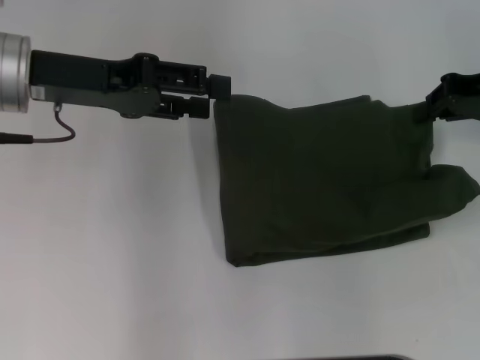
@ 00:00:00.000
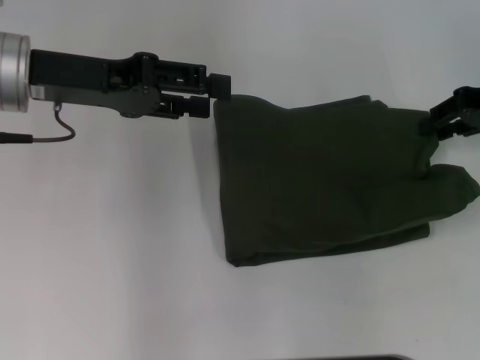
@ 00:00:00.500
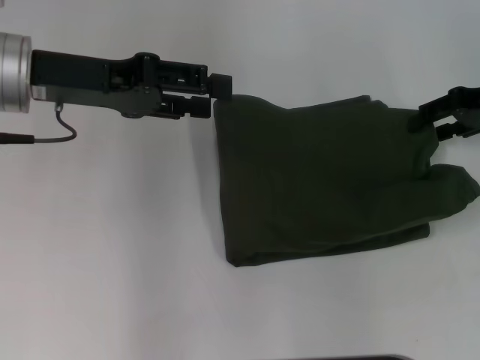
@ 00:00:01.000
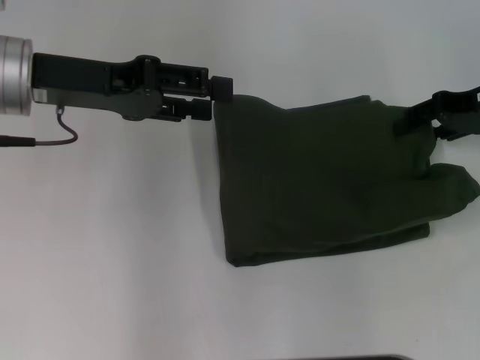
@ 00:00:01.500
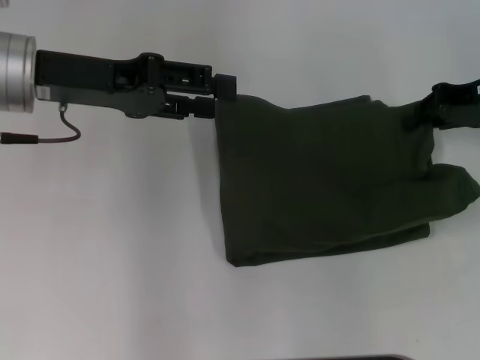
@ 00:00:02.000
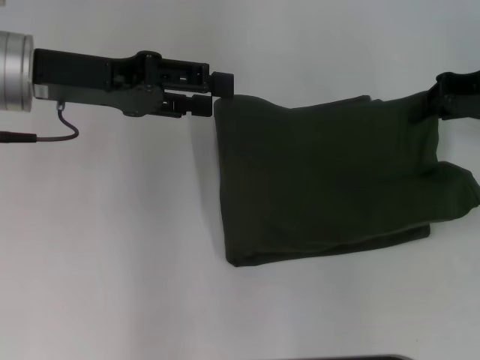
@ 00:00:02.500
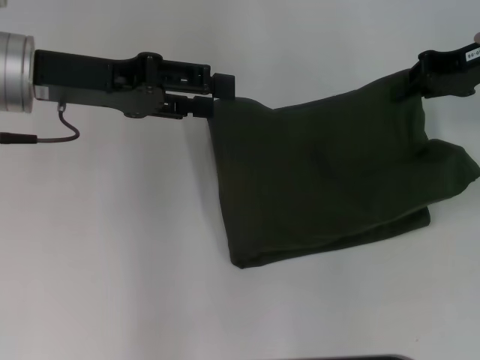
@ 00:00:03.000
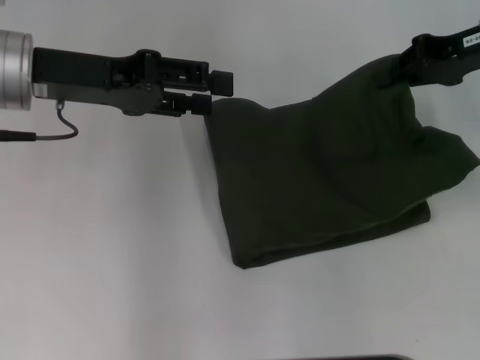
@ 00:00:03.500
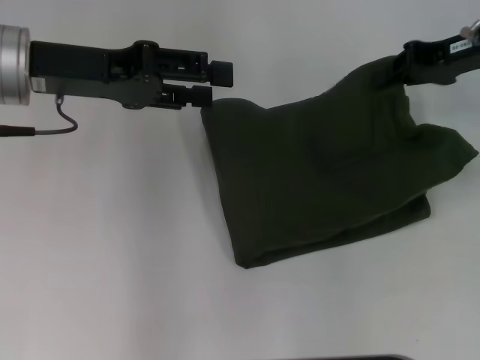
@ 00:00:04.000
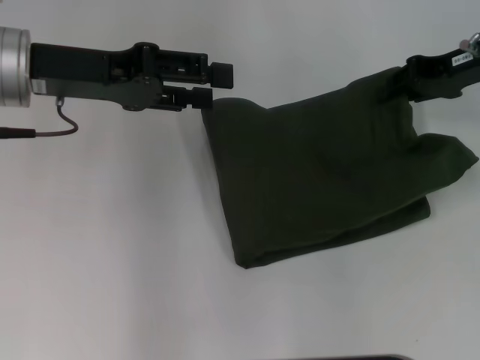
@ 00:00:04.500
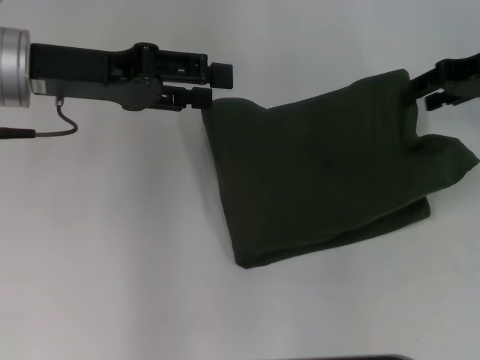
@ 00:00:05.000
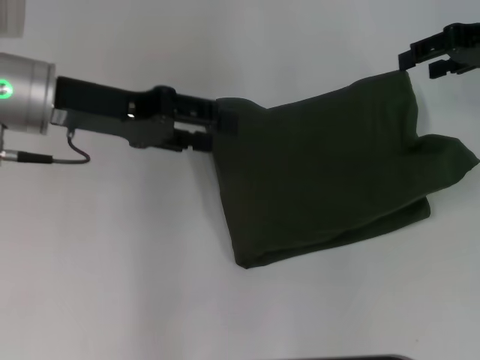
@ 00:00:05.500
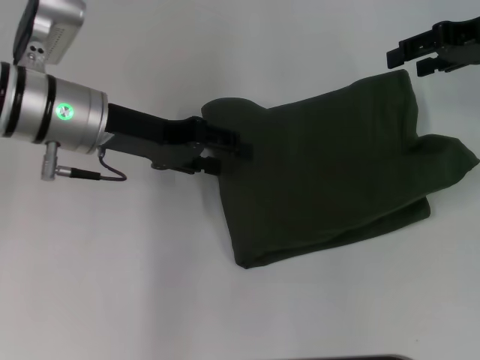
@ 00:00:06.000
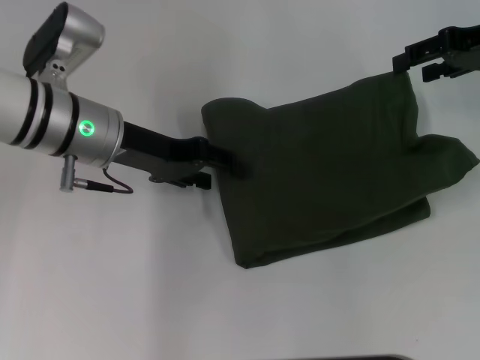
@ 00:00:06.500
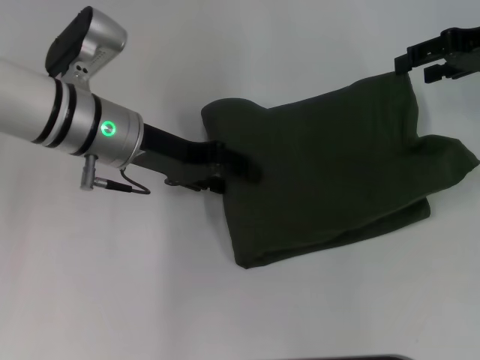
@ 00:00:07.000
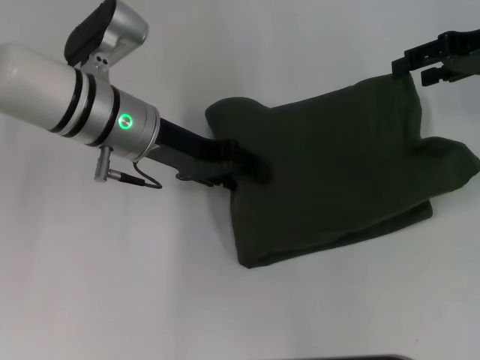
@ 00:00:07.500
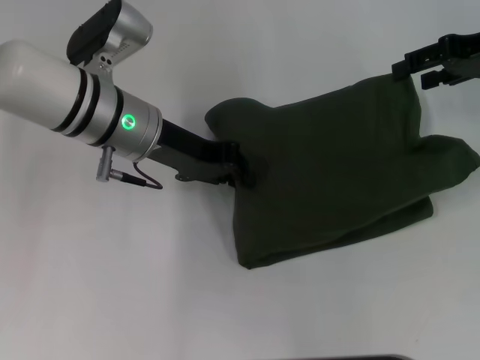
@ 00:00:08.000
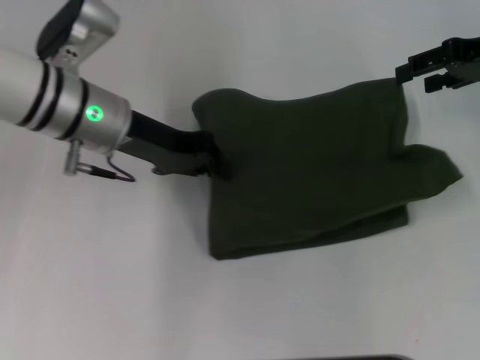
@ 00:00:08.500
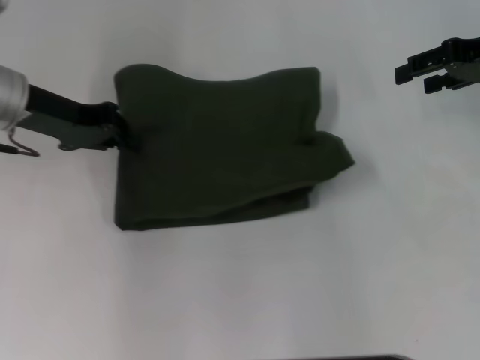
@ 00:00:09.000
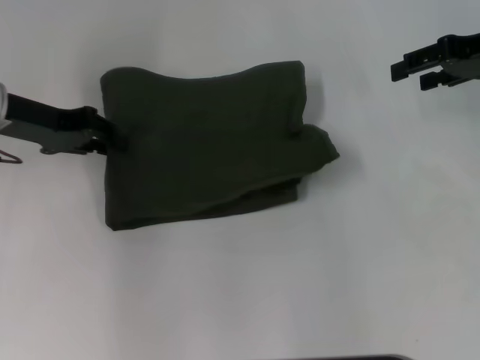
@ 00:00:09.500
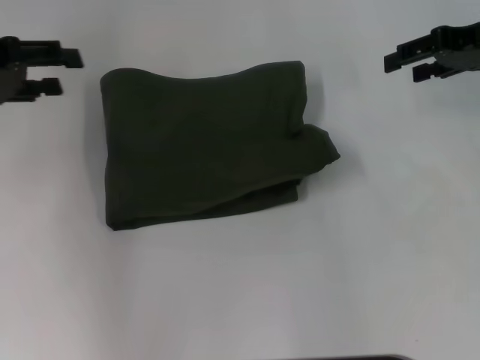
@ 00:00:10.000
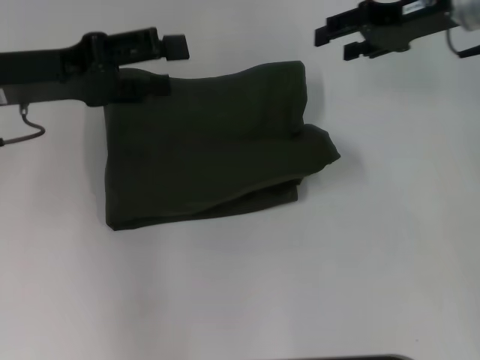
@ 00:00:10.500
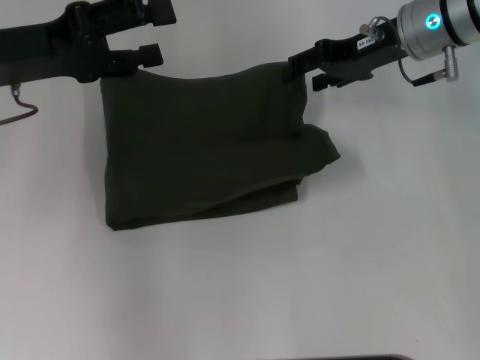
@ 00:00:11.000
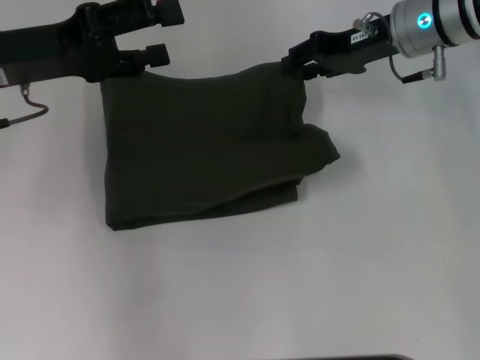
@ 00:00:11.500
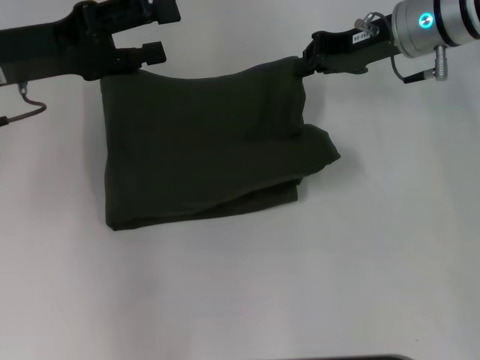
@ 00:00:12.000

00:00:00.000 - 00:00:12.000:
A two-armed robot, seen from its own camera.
00:00:00.000 - 00:00:04.000: The grippers make only small movements.
00:00:04.000 - 00:00:06.000: The right gripper opens its fingers. The left gripper shifts some 5 cm downward.
00:00:06.000 - 00:00:08.000: The left gripper changes place by approximately 5 cm, and closes its fingers.
00:00:08.000 - 00:00:10.000: The left gripper travels to the left by about 20 cm.
00:00:10.000 - 00:00:12.000: The right gripper moves to the left, approximately 10 cm, and closes up. Meanwhile the left gripper shifts roughly 5 cm to the right, and opens its fingers.

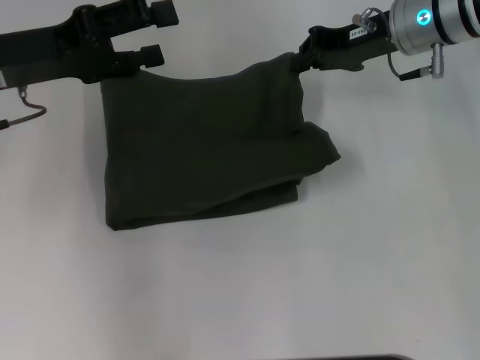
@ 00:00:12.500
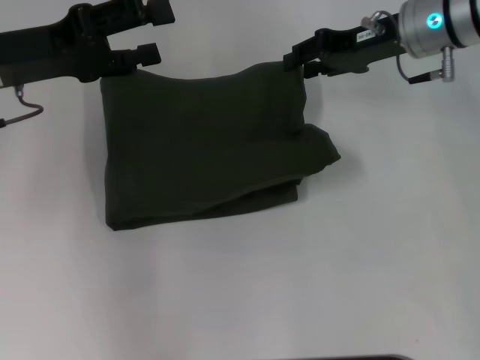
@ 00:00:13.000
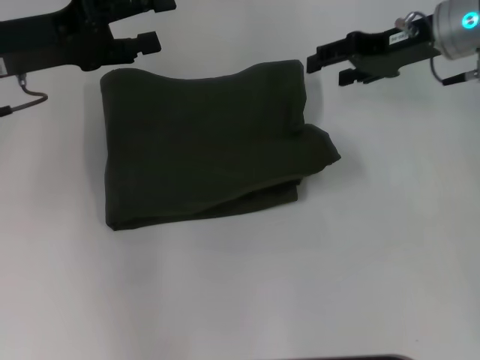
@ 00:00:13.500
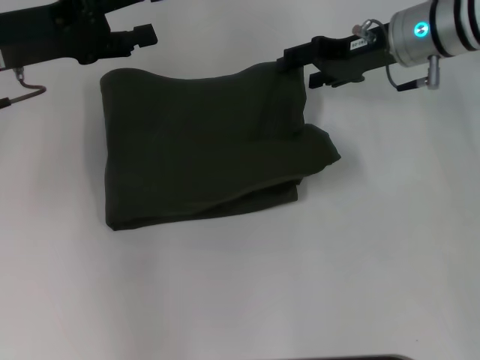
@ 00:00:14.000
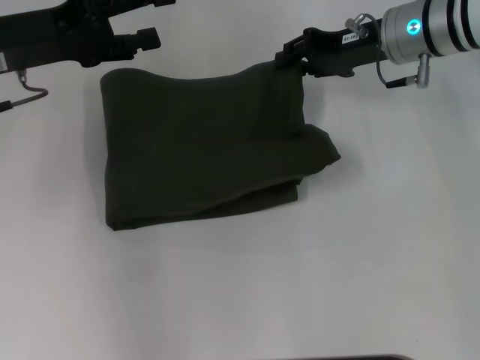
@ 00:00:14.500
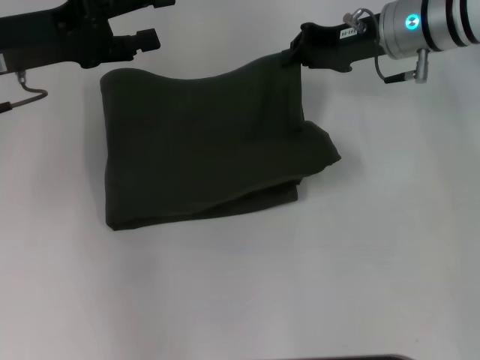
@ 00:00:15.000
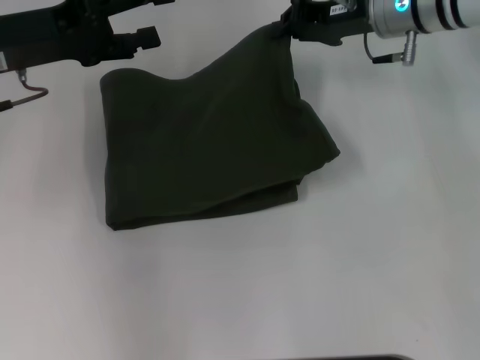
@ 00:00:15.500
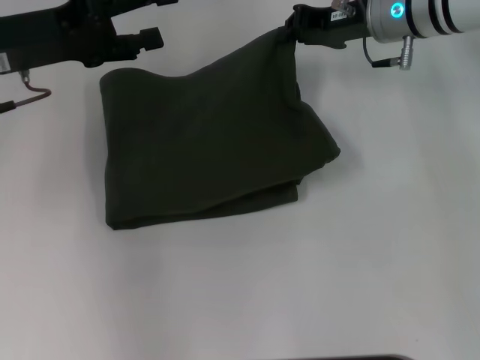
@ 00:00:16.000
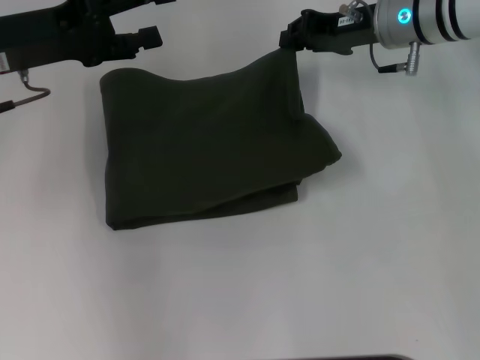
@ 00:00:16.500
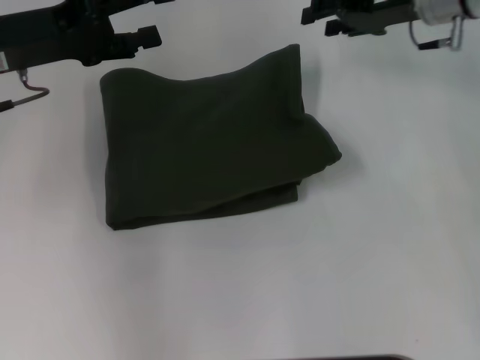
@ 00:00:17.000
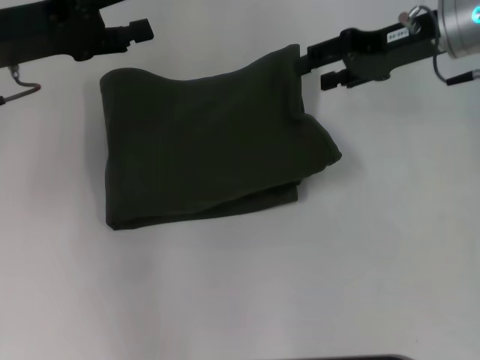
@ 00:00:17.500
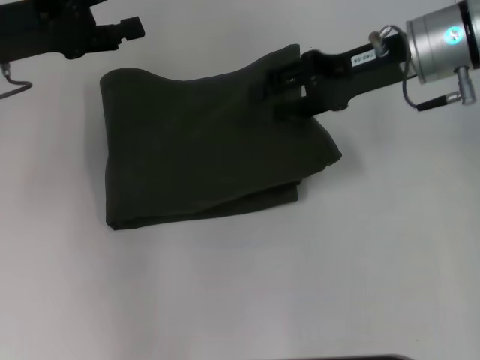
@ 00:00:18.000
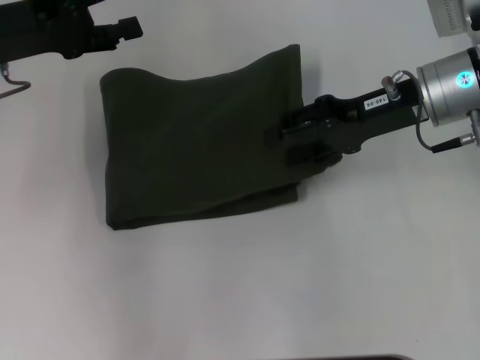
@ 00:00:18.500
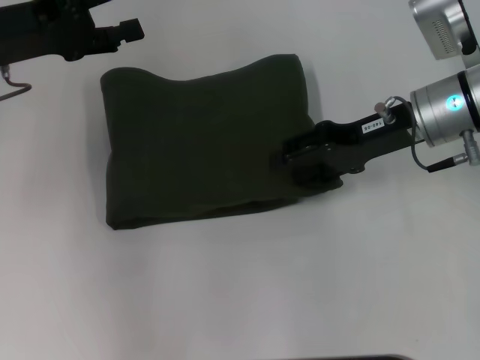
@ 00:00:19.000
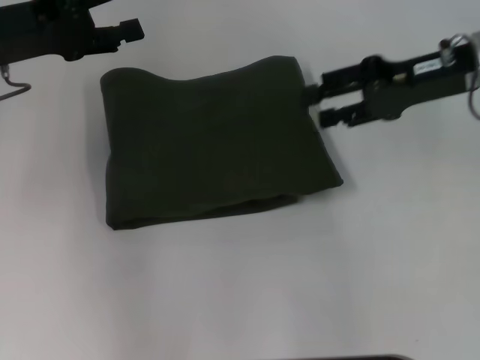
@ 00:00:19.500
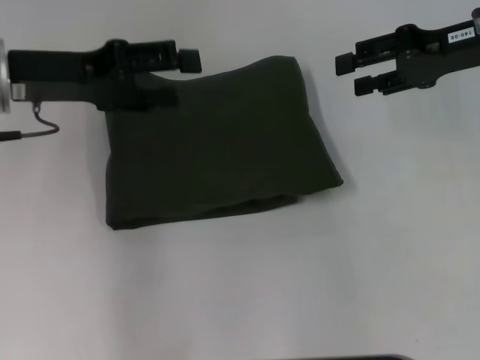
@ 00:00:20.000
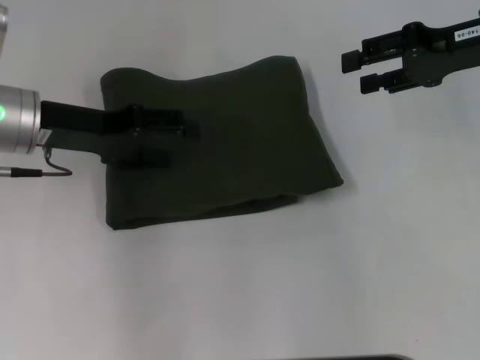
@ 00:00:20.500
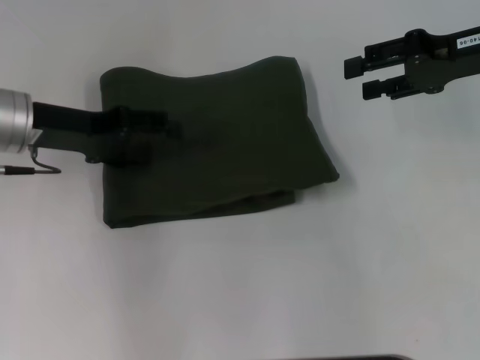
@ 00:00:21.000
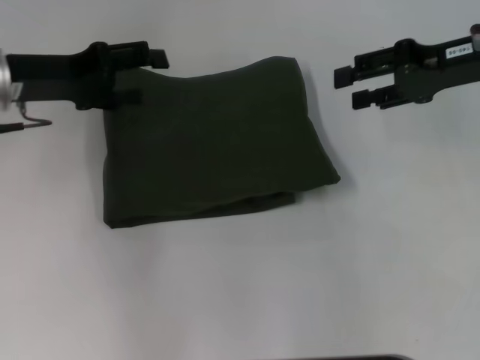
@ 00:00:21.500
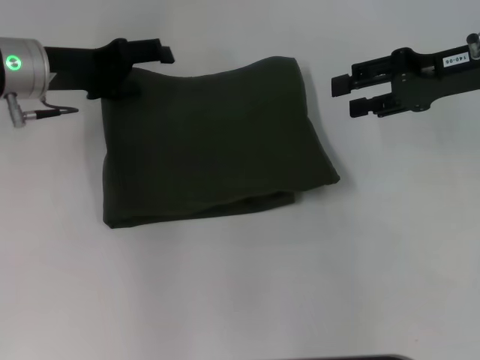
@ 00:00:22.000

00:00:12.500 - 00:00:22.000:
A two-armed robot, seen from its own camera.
00:00:12.500 - 00:00:14.500: The right gripper opens up.
00:00:14.500 - 00:00:16.500: The right gripper closes up.
00:00:16.500 - 00:00:18.000: The right gripper moves backward, some 5 cm, and opens.
00:00:18.000 - 00:00:20.000: The right gripper moves to the right, some 10 cm.
00:00:20.000 - 00:00:22.000: The left gripper heads forward, covering roughly 5 cm.

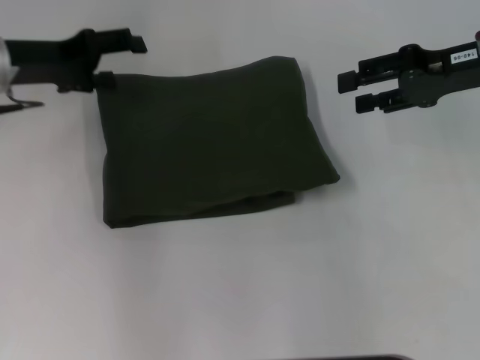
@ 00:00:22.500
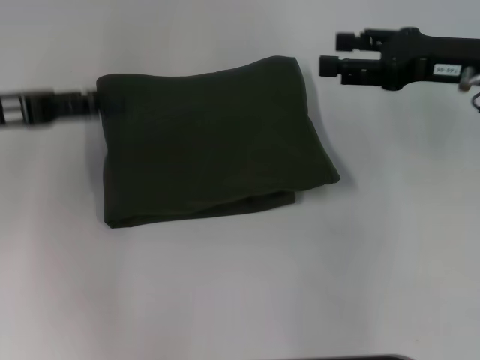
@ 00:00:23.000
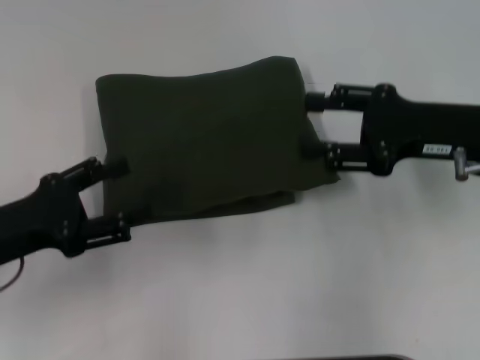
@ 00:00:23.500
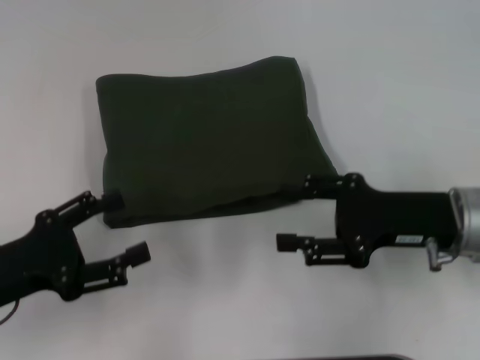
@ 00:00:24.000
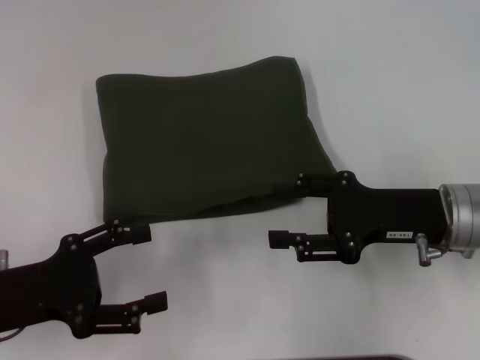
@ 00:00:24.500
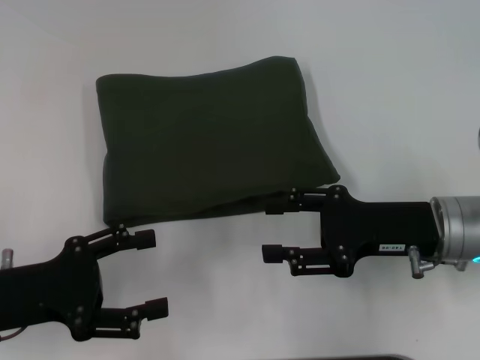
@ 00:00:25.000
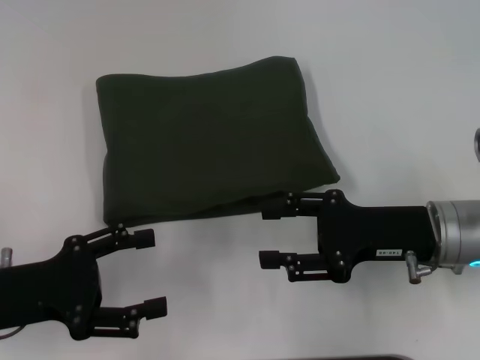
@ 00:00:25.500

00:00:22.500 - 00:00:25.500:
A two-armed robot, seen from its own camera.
00:00:22.500 - 00:00:24.000: The right gripper travels backward, downward and to the left by some 15 cm. The left gripper goes roughly 20 cm backward.
00:00:24.000 - 00:00:25.500: The grippers move only a little.
